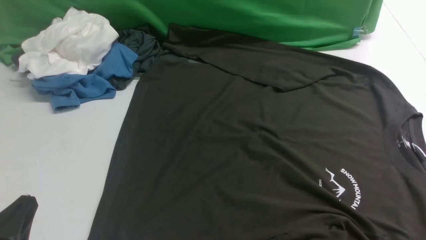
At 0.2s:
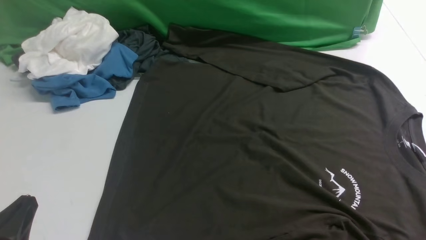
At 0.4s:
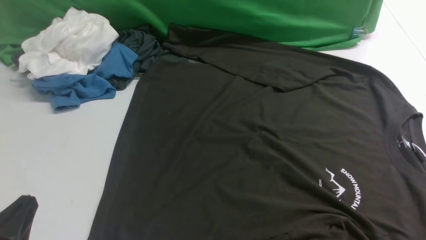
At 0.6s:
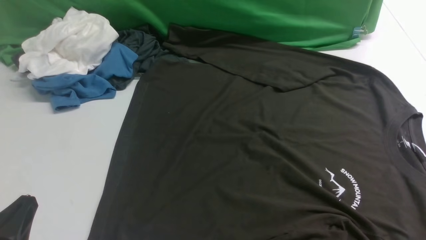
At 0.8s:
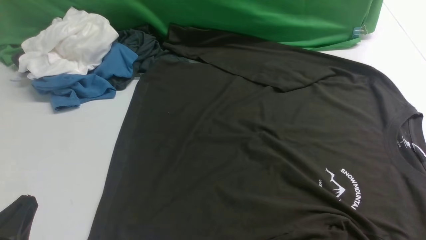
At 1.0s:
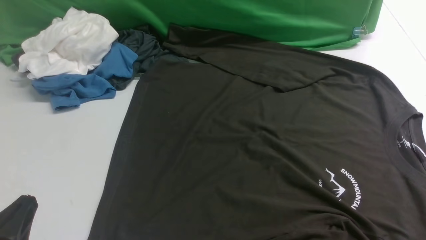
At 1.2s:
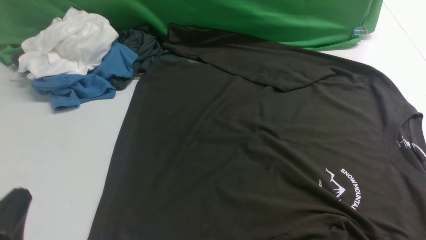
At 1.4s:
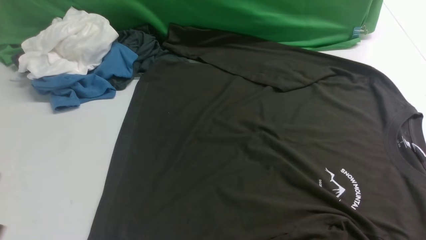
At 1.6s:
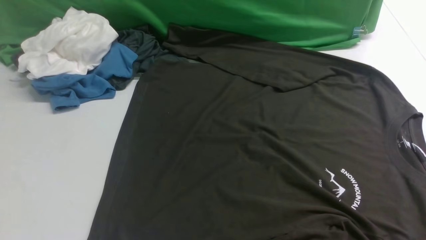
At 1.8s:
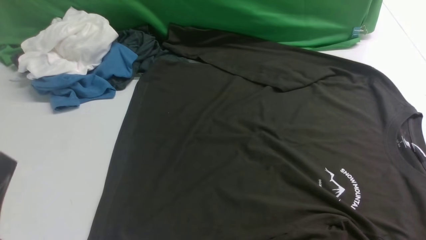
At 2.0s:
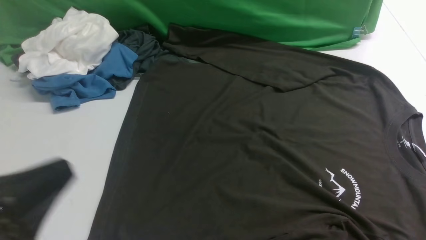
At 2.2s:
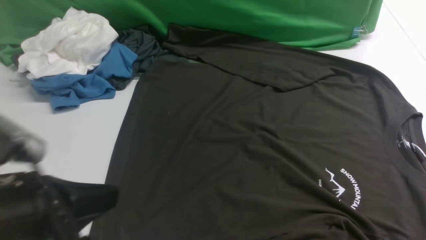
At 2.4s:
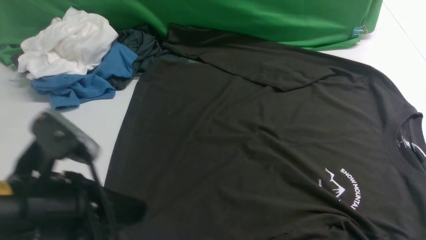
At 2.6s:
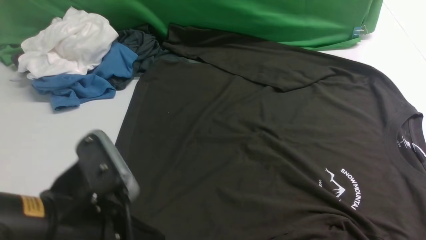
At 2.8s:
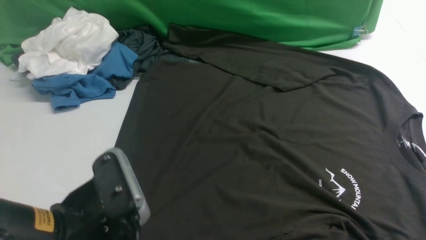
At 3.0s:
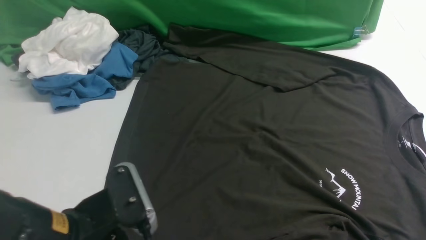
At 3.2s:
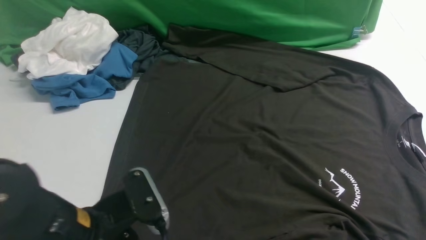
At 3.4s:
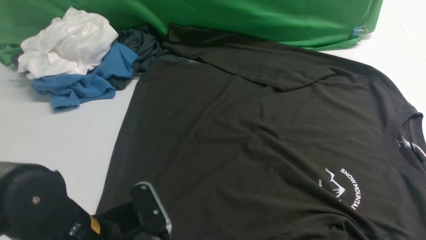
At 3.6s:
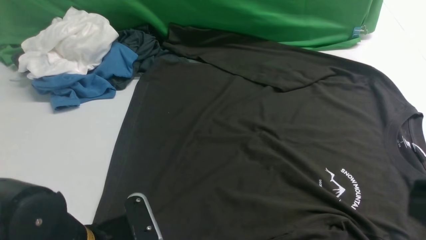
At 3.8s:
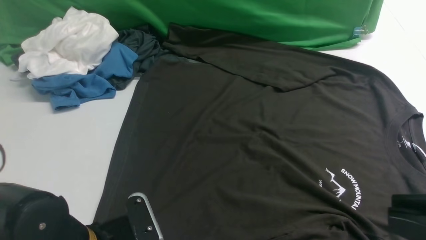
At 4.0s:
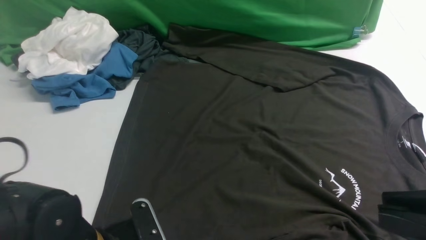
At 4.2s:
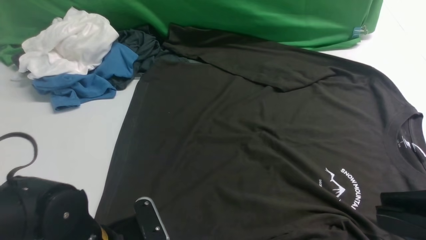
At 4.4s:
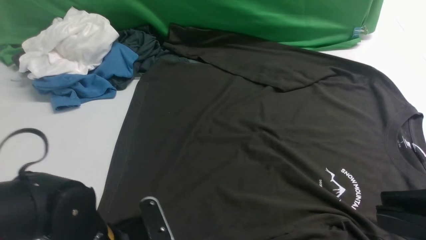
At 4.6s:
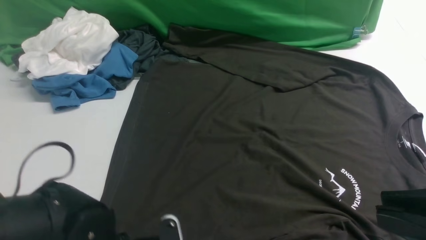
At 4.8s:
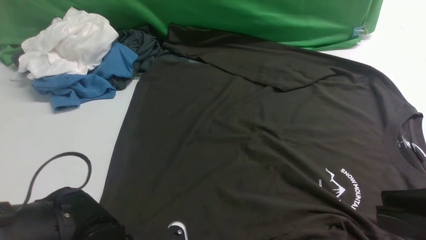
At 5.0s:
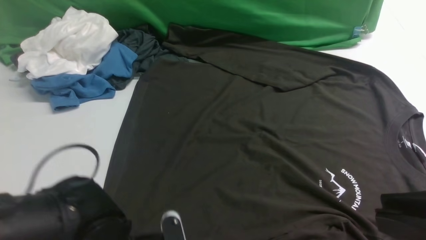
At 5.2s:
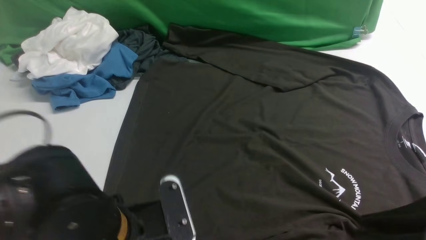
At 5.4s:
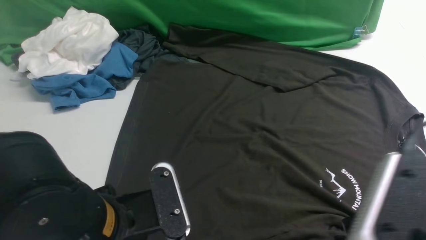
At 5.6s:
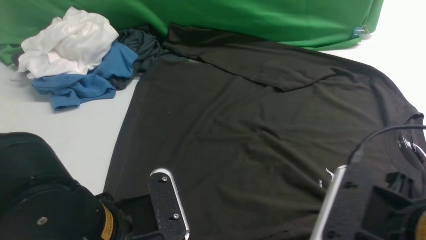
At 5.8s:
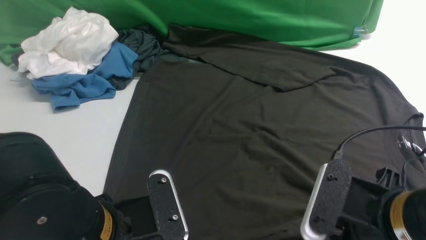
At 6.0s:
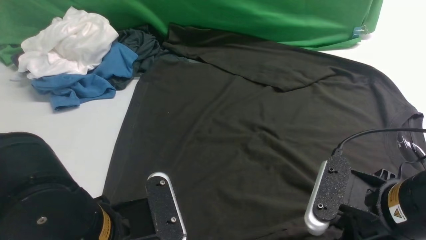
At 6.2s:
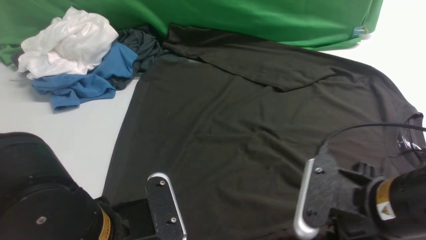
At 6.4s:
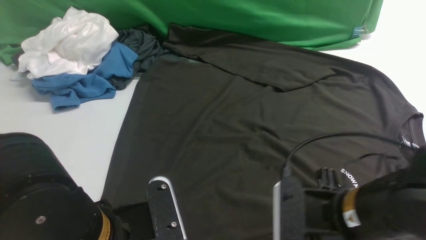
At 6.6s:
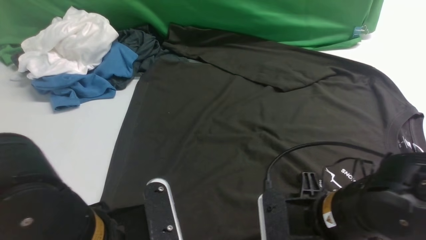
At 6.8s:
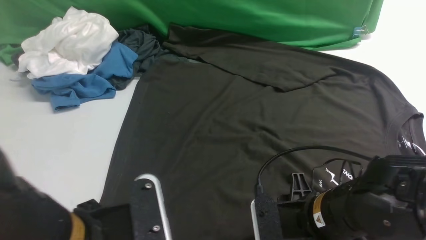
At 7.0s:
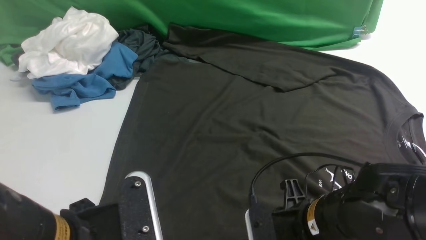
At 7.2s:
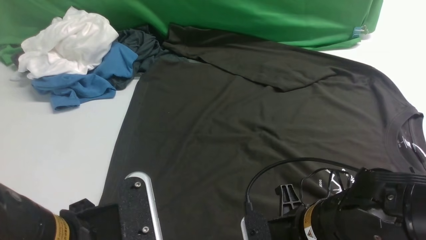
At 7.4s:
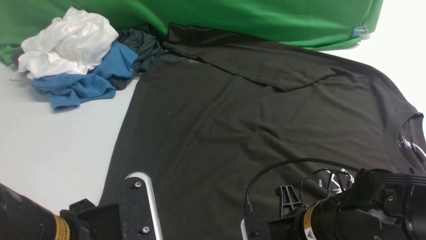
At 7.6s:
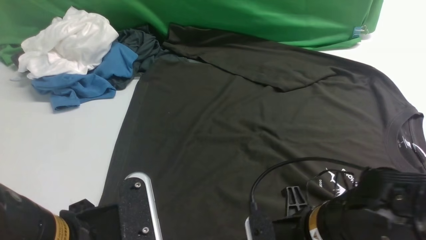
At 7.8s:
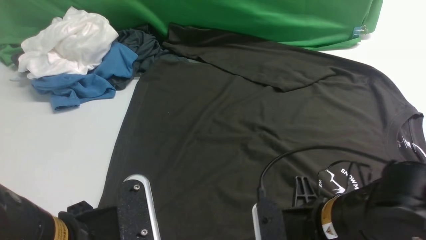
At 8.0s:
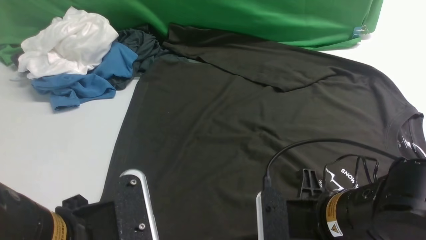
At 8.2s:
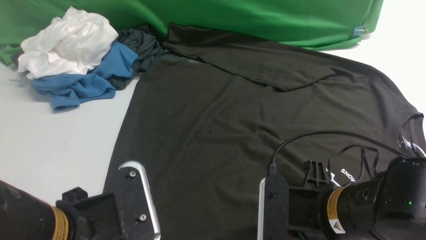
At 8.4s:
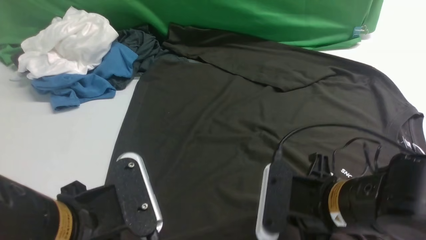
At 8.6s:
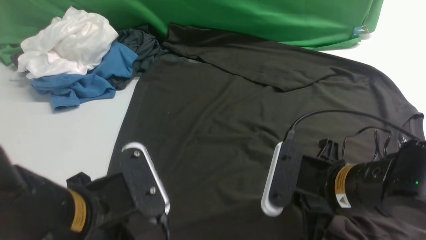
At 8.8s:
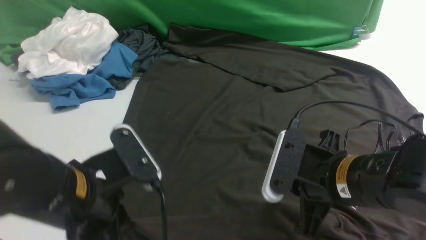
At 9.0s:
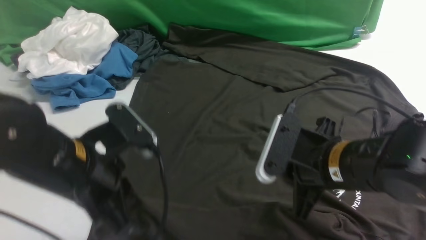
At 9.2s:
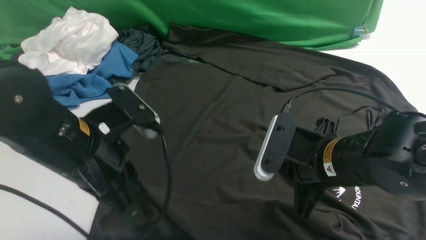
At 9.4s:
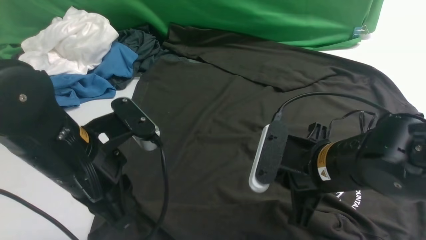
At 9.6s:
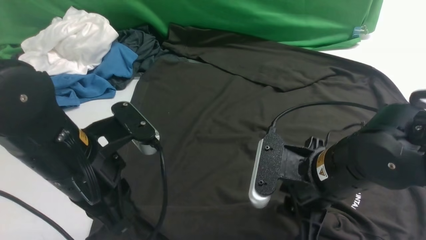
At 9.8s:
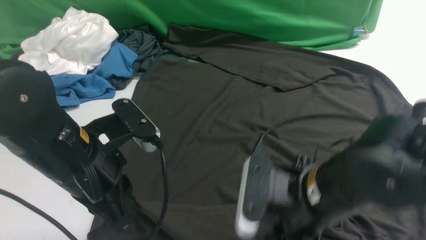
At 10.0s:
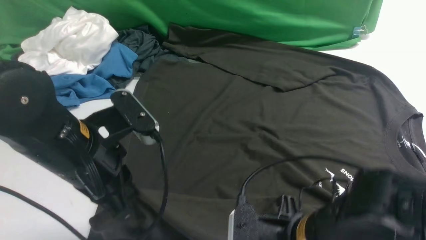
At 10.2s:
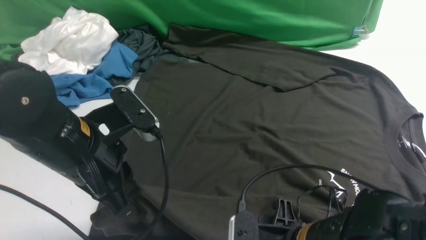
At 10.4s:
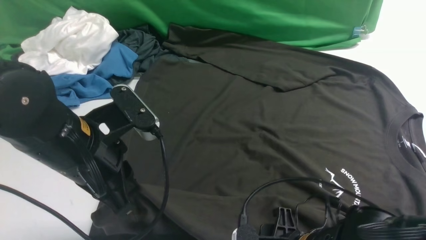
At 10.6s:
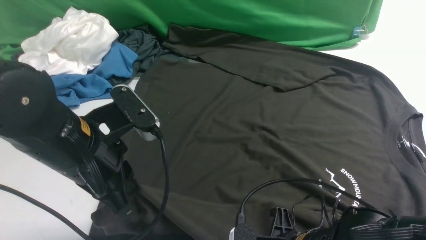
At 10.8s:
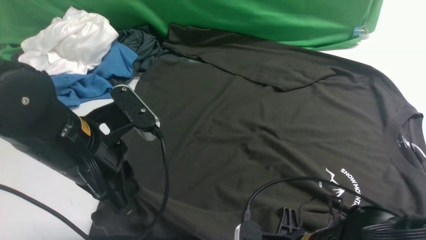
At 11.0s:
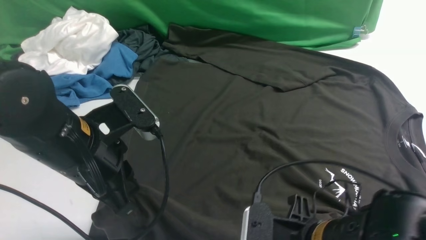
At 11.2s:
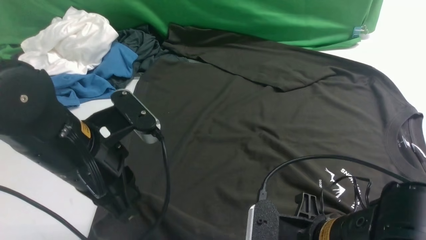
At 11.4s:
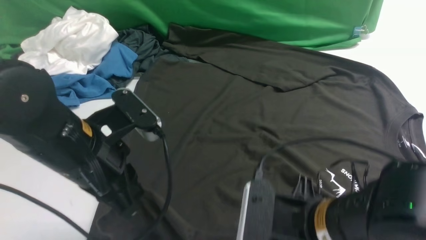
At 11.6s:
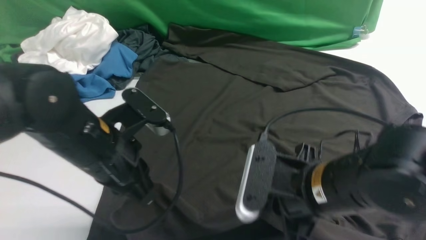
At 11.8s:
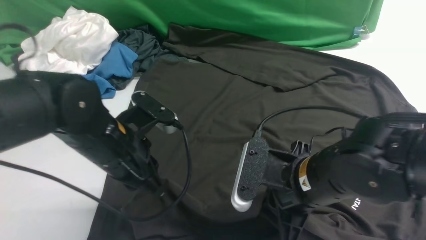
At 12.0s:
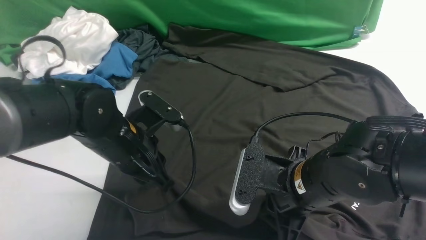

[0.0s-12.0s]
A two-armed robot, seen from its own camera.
Step, 0.0s to 8.8s: use the left arm to clamp the cuff closest to it.
1.6s to 3.0s: The left gripper is displaced to the right and forward by about 10 cm.
3.0s to 4.4s: The right gripper heads upward and to the left, covering some 10 cm. Meanwhile the left gripper moves downward, roughly 10 cm, and opens its fingers.
4.4s to 6.0s: The left gripper moves upward, about 10 cm, and closes up. The right gripper goes roughly 15 cm downward, forward and to the left.
6.0s to 7.6s: The right gripper moves to the left and downward, about 10 cm, and closes.
7.6s to 9.0s: The right gripper shifts approximately 5 cm forward; the left gripper moves forward, about 10 cm.
9.0s to 10.4s: The right gripper goes some 10 cm backward and downward, and opens.
10.4s to 12.0s: The left gripper moves downward and forward, some 10 cm. Meanwhile the right gripper travels forward by roughly 5 cm, and closes.

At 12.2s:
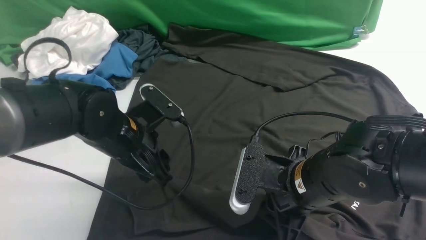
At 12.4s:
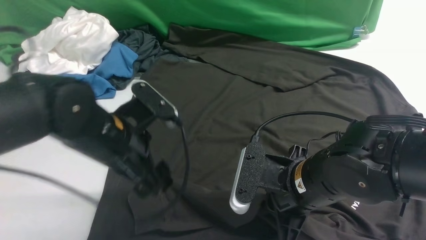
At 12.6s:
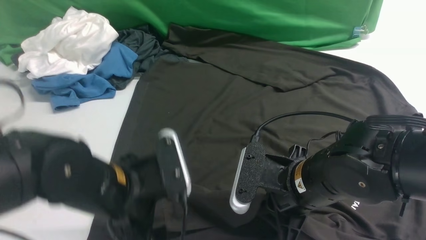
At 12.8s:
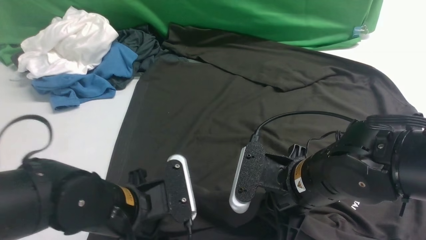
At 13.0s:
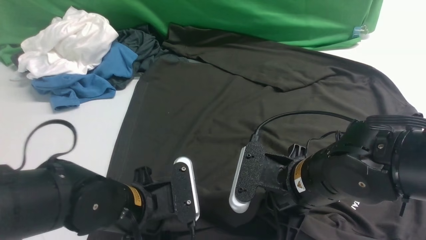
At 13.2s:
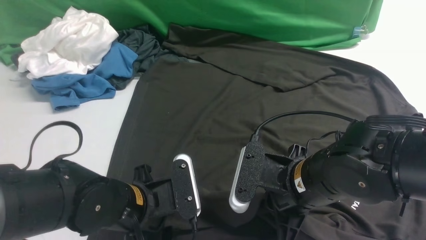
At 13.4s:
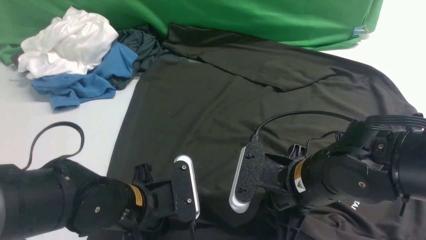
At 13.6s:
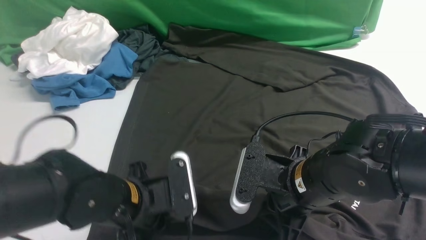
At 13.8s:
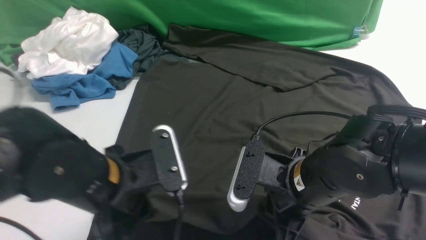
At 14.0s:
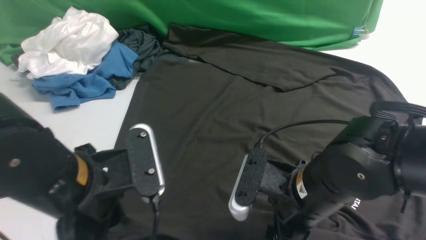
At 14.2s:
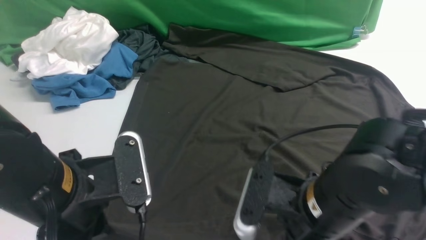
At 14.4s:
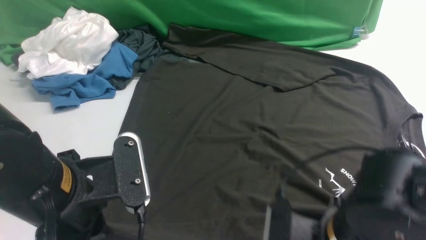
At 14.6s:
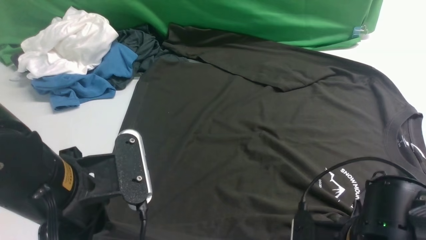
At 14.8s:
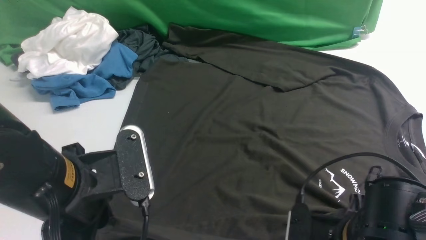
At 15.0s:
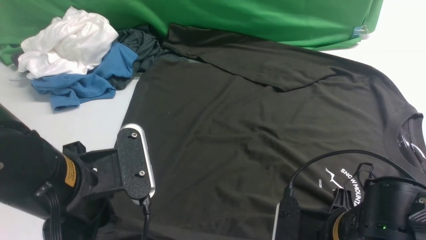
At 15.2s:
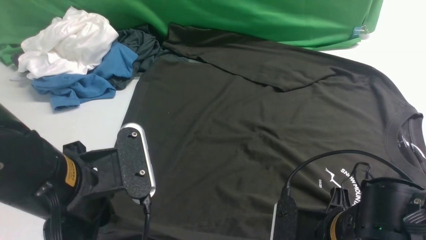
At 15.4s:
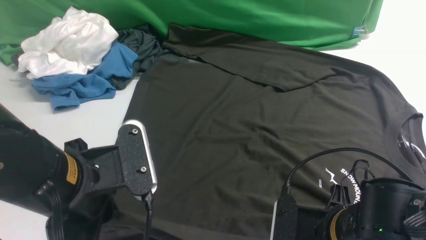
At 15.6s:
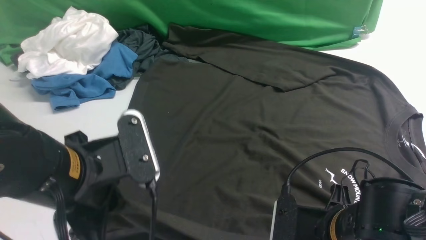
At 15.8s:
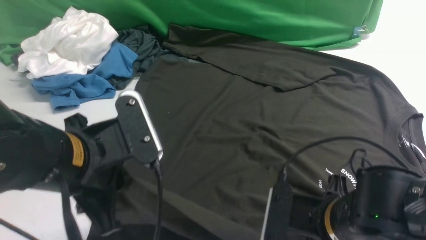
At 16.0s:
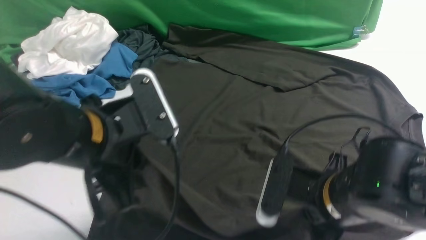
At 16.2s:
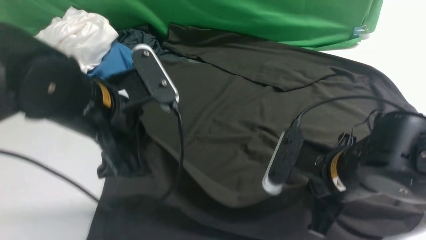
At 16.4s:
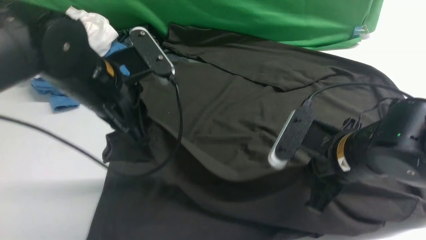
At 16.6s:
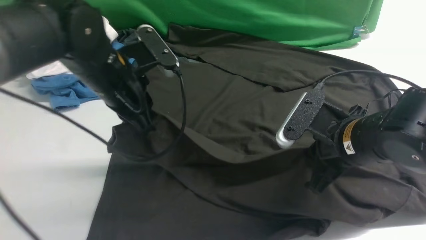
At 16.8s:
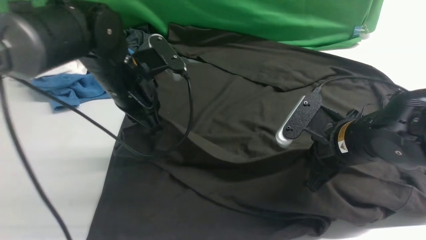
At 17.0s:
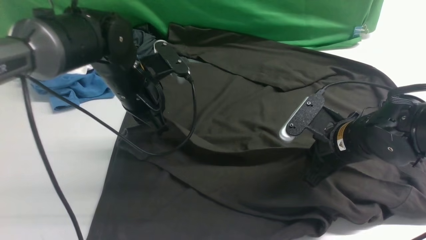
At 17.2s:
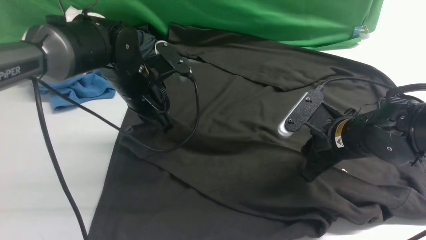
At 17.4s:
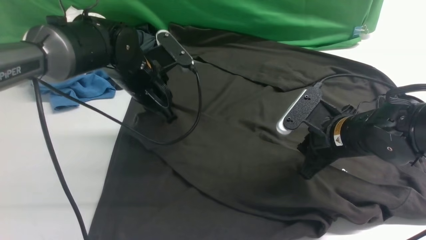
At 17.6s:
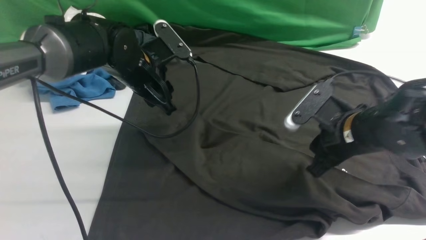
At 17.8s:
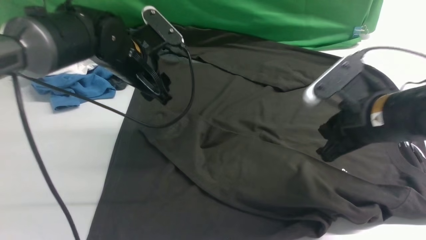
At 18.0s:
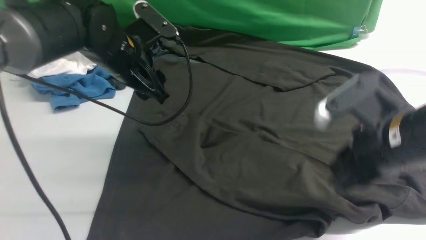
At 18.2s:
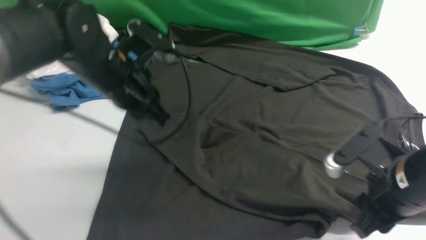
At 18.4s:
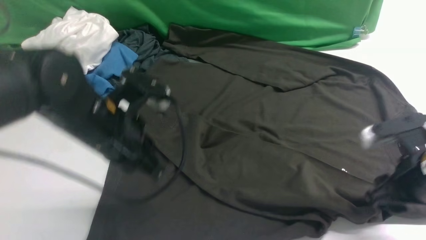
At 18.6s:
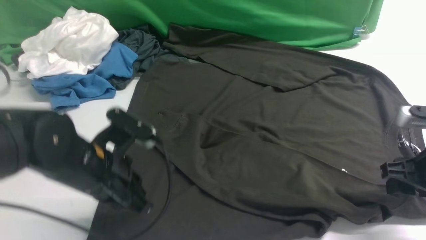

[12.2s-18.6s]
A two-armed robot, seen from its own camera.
Step, 12.2s to 17.6s: use the left arm to drag and place the cuff at the centered position on the left edge of the fabric.
12.2s to 13.8s: The left gripper shifts about 10 cm backward, and closes its fingers; the right gripper opens up.
13.8s to 15.4s: The right gripper travels backward by some 5 cm, and opens, then closes again. Meanwhile the left gripper shifts by approximately 5 cm.
15.4s to 17.0s: The right gripper shifts some 15 cm forward. Meanwhile the left gripper is displaced forward by about 20 cm.
17.0s to 18.6s: The right gripper is displaced to the right and backward by approximately 10 cm, and opens. The left gripper shifts approximately 15 cm backward, and opens and closes again.
